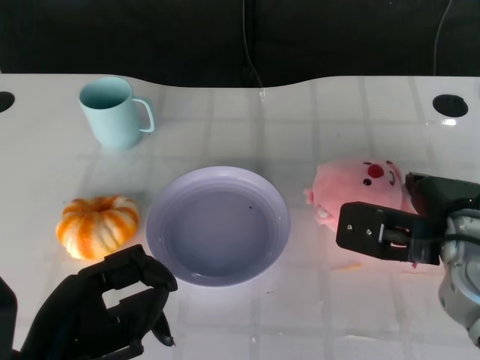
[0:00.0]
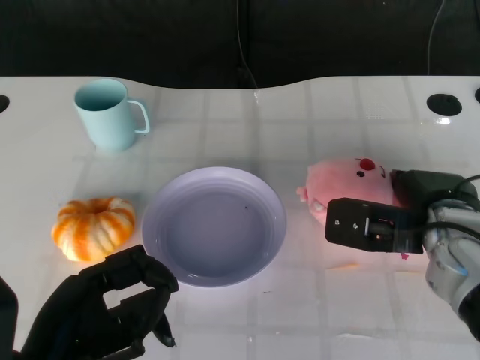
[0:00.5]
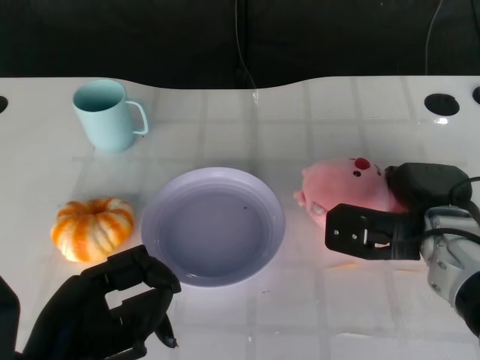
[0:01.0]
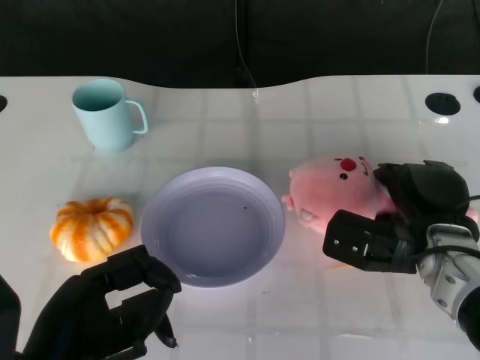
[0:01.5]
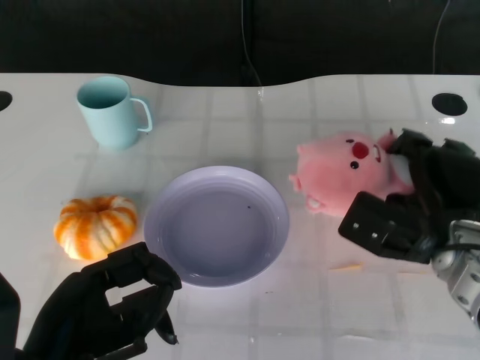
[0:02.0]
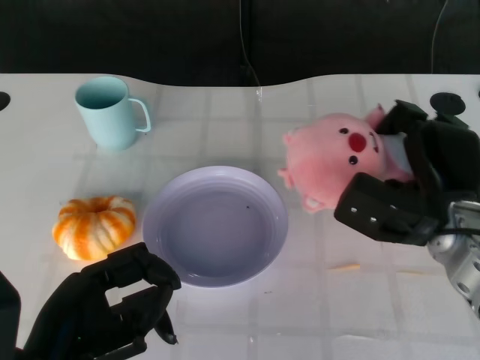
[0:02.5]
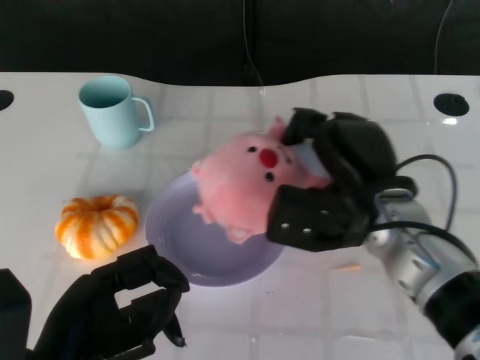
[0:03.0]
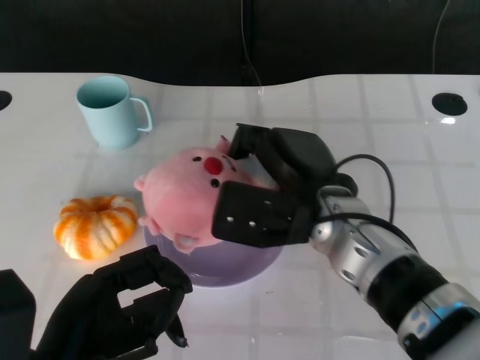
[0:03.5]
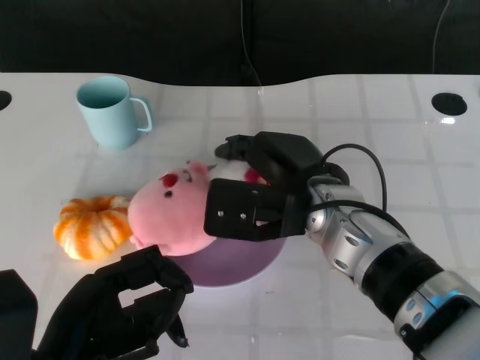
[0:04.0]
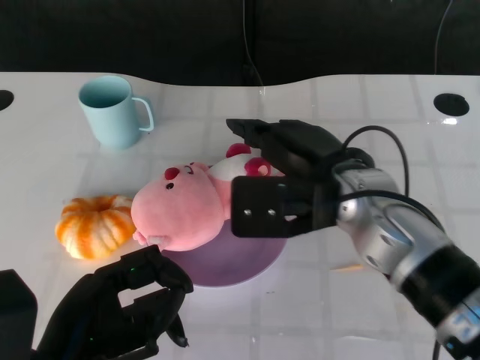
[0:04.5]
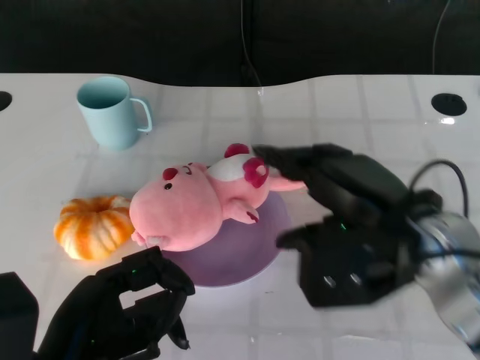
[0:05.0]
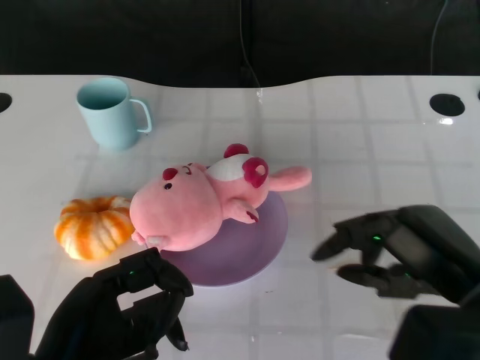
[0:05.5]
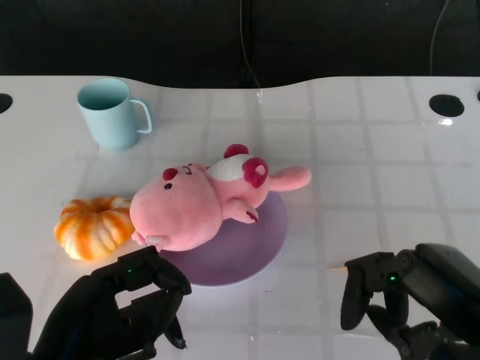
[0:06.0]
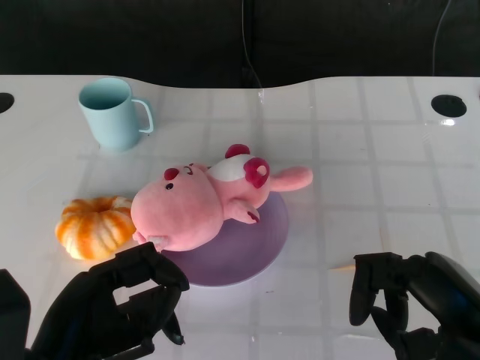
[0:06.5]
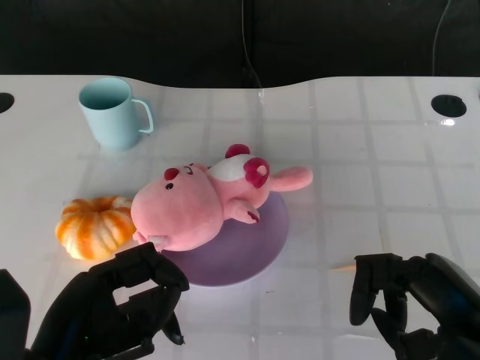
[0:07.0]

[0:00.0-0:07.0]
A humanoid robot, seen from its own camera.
Task of the whole recording: Pick up the doll on the other side of the plate and place it into the plate.
Step, 0:02.0 to 0:04.0: Place the pink doll into the plate with the right gripper.
0:02.0 to 0:03.5: The right hand heads to the left and upward, covering about 15 cm.
0:03.5 to 0:05.0: The right hand is displaced to the right by roughly 10 cm.
0:05.0 to 0:07.0: The right hand goes about 15 cm backward, to the right and downward.
